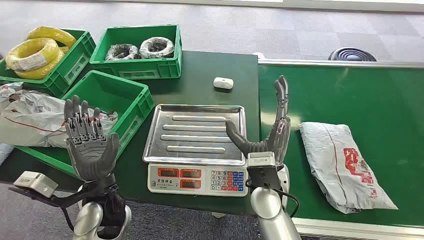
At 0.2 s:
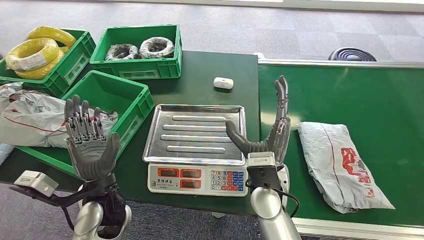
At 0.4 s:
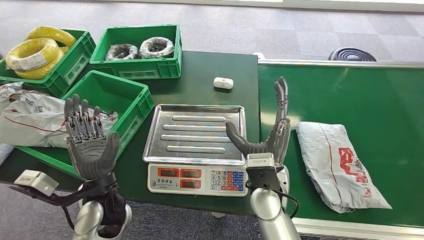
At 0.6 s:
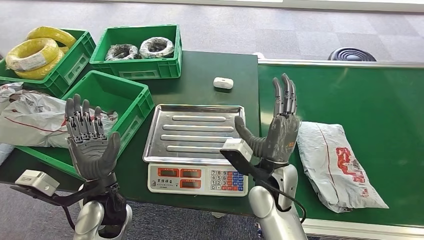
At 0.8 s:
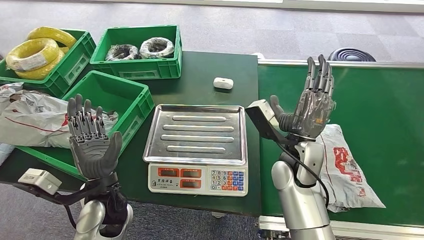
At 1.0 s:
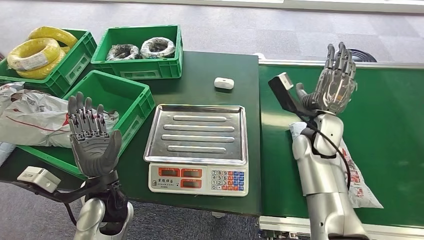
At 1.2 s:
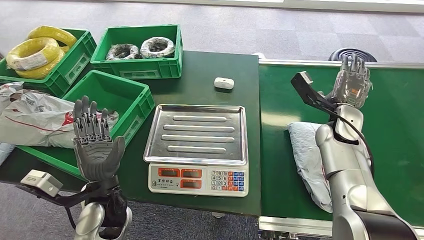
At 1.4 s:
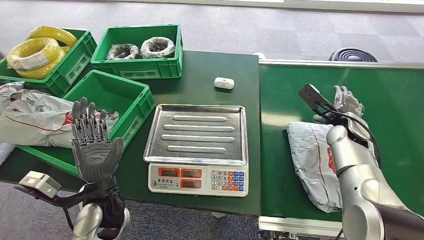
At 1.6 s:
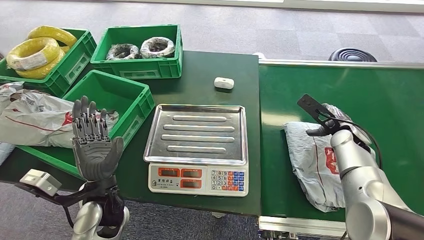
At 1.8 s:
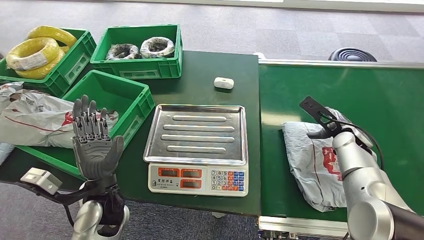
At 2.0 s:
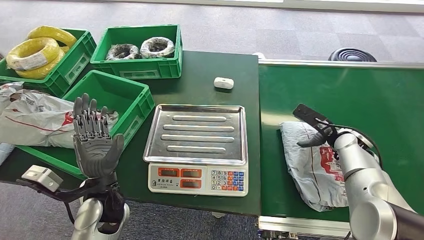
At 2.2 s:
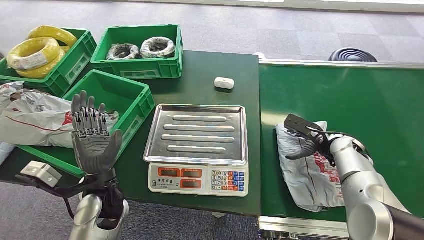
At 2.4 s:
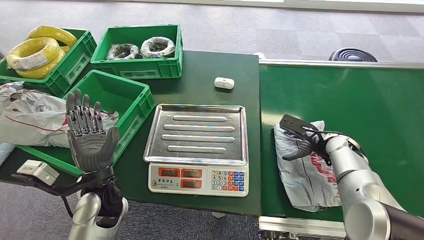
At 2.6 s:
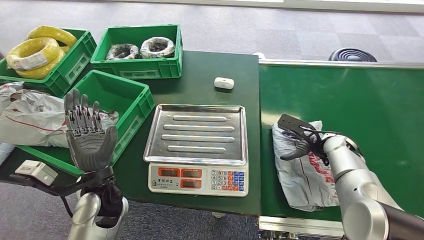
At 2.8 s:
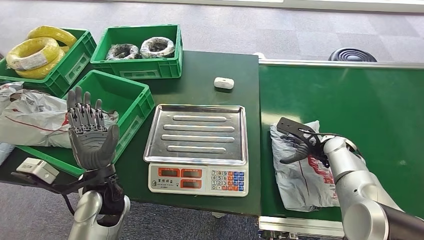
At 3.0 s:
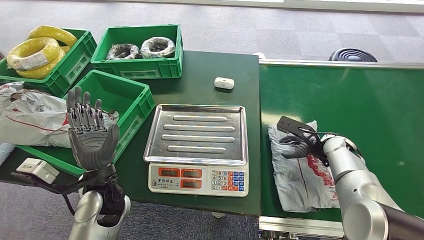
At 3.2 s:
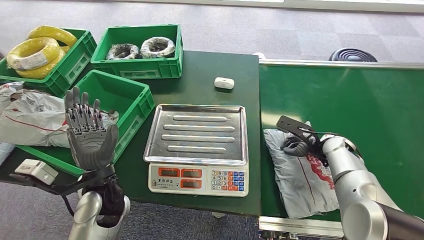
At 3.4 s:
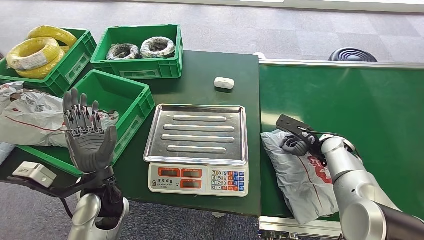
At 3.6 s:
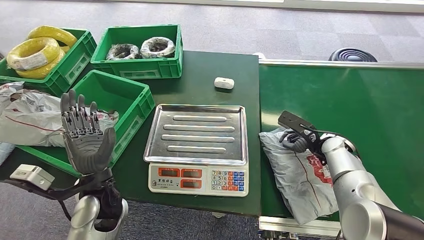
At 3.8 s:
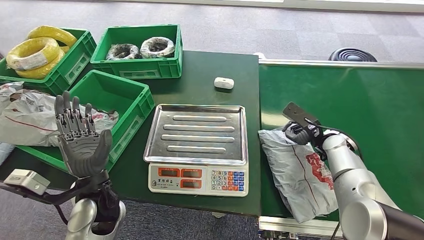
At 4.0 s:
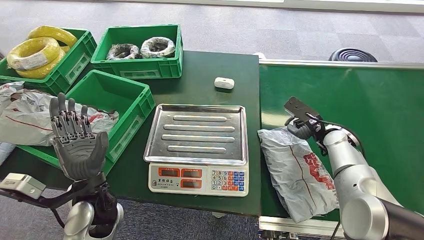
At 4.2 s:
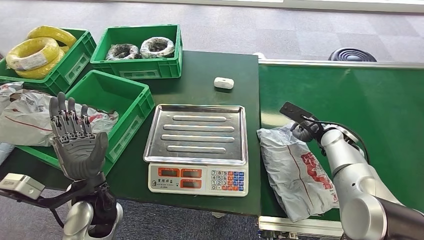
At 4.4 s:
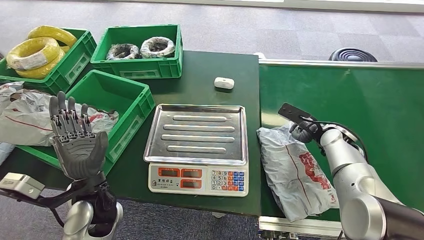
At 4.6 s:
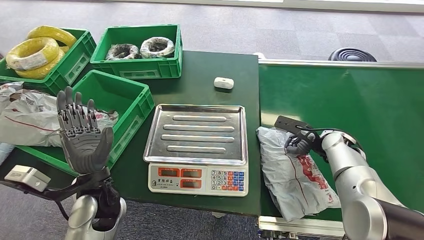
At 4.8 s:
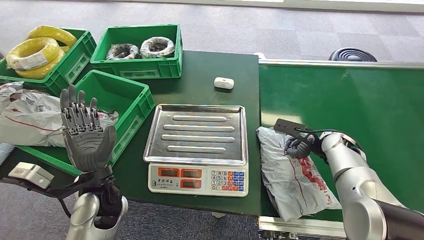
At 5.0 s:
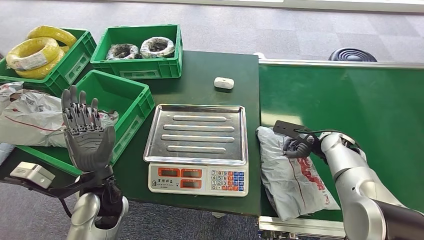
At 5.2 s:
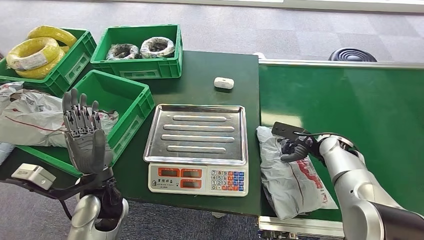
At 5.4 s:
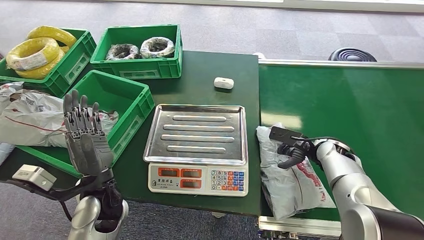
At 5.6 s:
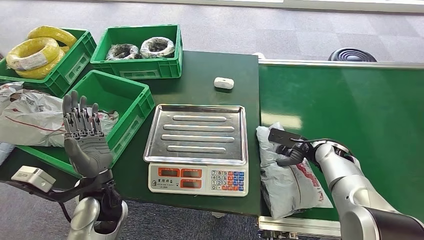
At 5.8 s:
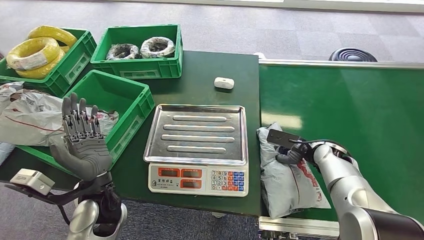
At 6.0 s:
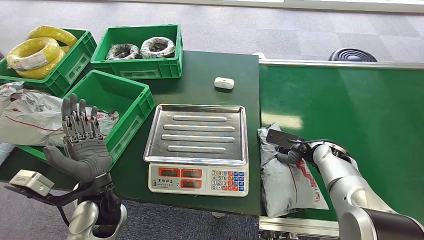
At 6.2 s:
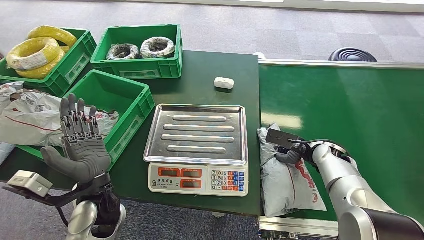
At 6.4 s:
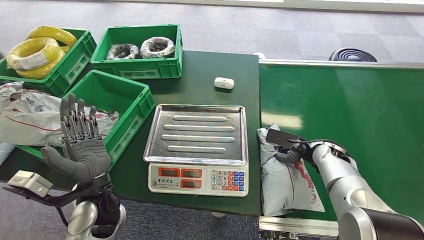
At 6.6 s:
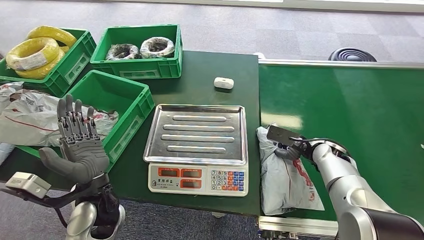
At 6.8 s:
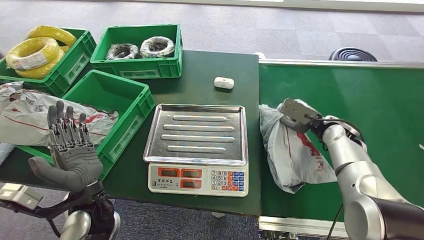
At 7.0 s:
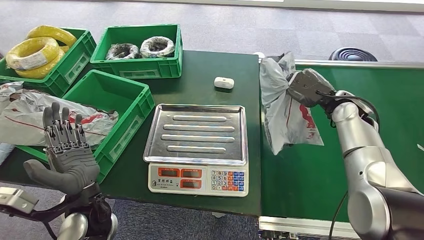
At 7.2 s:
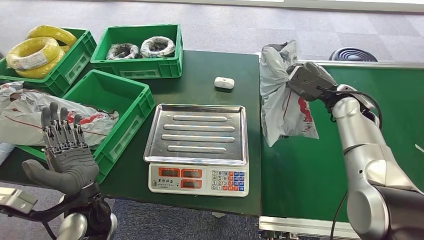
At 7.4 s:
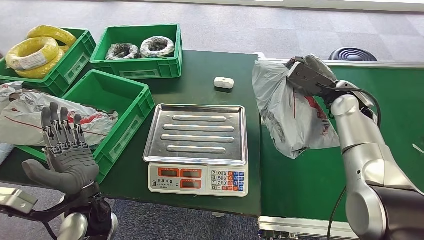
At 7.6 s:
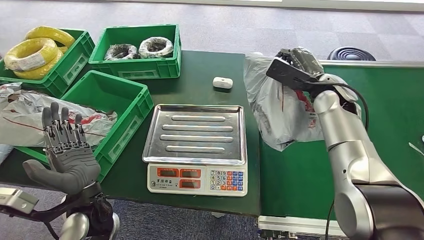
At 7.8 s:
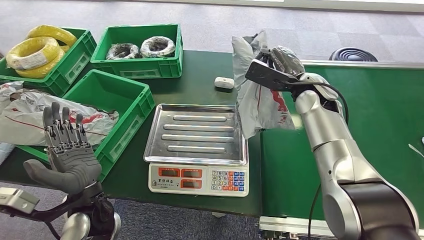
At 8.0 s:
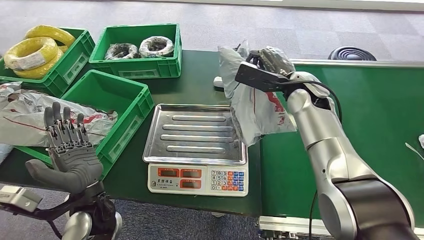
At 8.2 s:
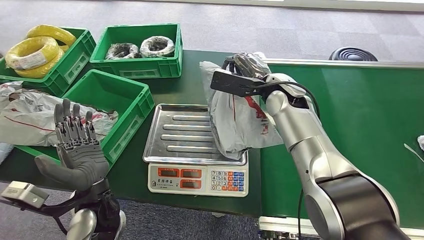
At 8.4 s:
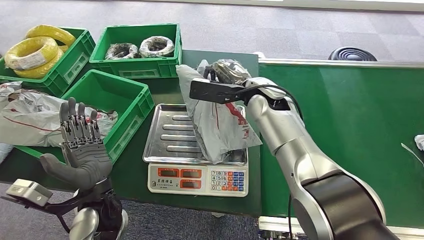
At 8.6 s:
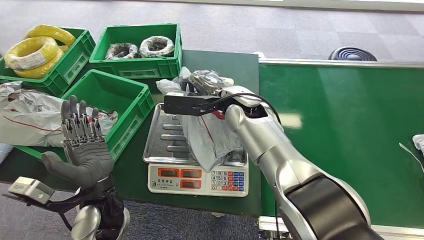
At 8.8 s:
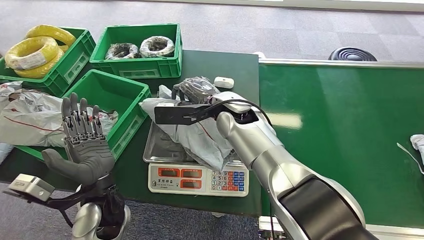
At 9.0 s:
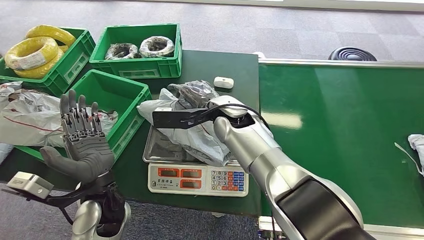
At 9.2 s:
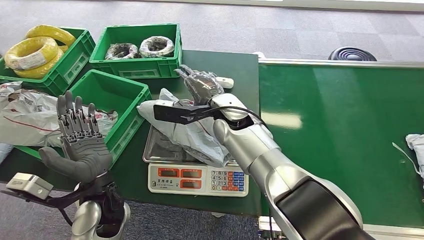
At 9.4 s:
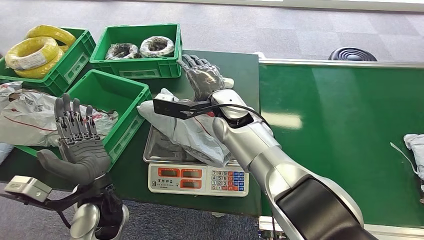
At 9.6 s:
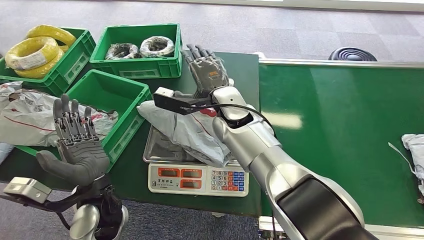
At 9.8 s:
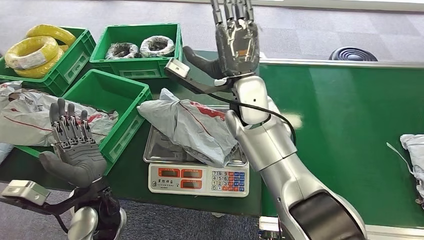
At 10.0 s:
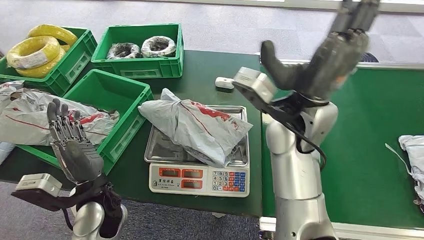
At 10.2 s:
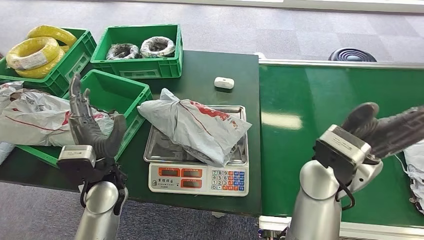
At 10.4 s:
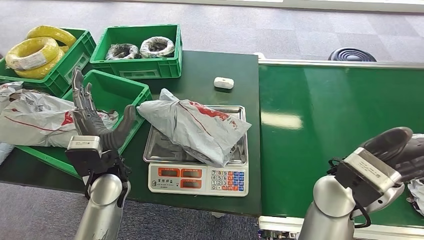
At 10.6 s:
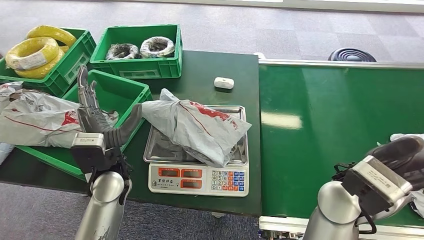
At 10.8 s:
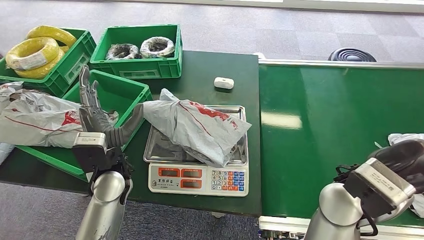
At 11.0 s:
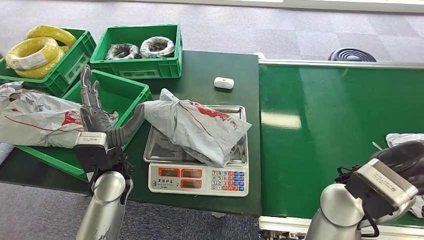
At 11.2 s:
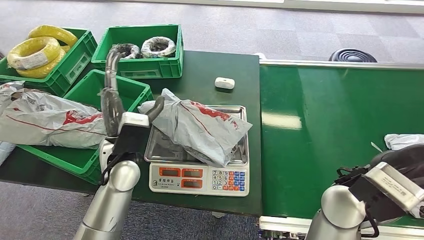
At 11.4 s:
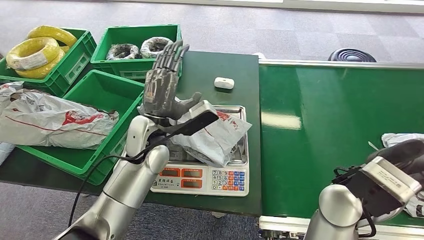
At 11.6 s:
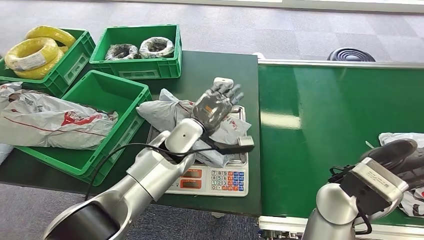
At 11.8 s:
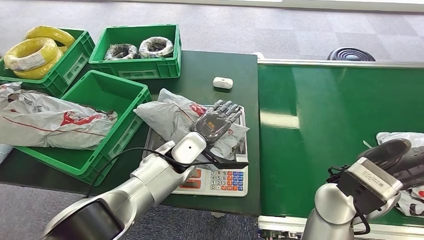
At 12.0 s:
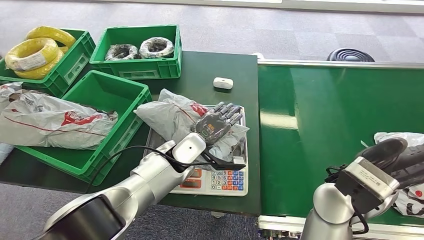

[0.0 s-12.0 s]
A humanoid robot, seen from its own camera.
Task of the whole recording: Weigh the package on the weighing device and place it in the left basket.
Step, 0.0 to 7.0 s: Pick up the package from the conveyor belt.
Step, 7.4 to 9.4 s: Place the package onto the inbound machine.
4.4 to 6.0 s: The right hand changes place by about 5 cm.

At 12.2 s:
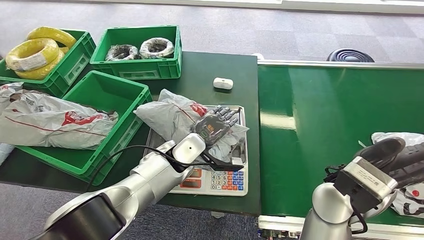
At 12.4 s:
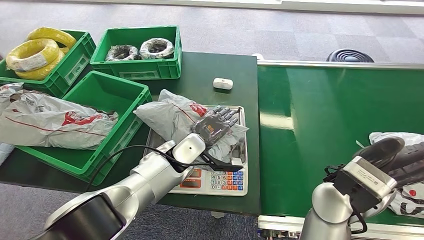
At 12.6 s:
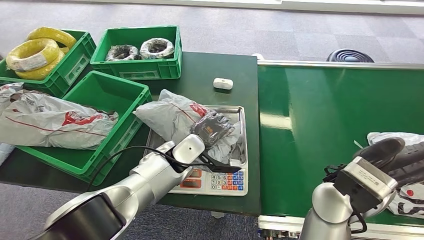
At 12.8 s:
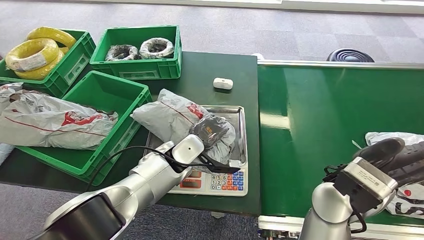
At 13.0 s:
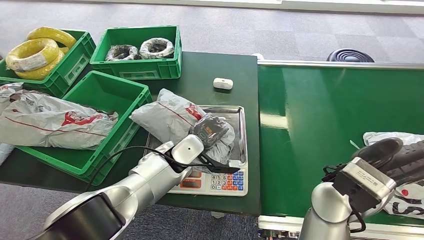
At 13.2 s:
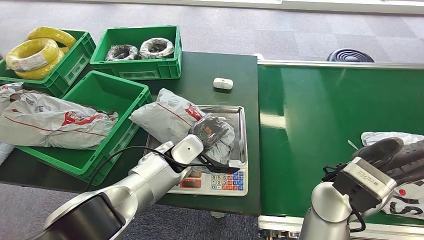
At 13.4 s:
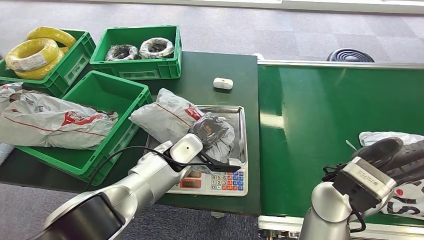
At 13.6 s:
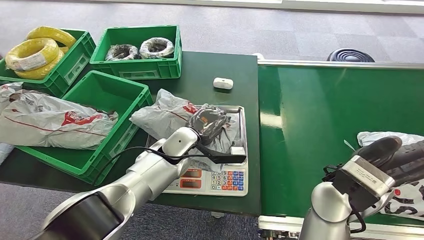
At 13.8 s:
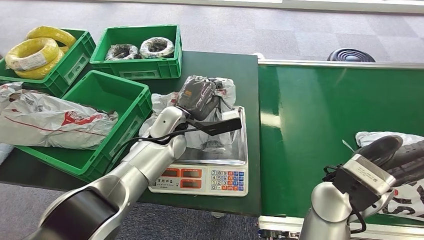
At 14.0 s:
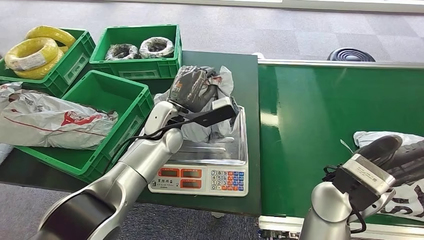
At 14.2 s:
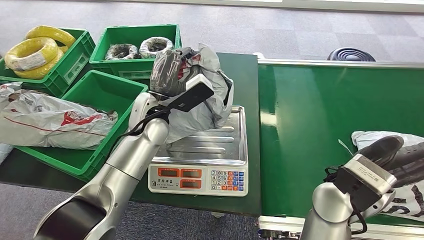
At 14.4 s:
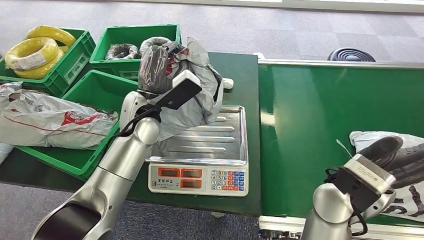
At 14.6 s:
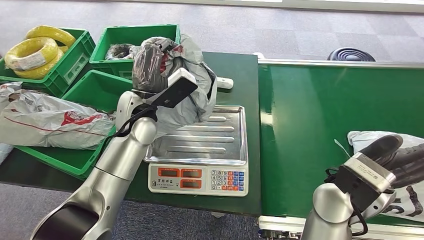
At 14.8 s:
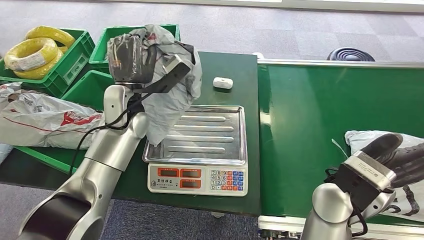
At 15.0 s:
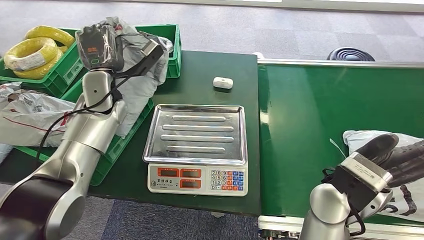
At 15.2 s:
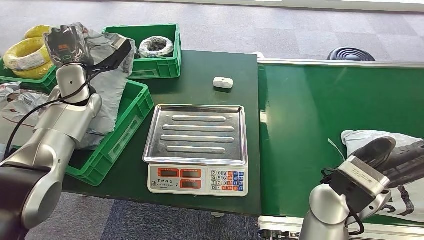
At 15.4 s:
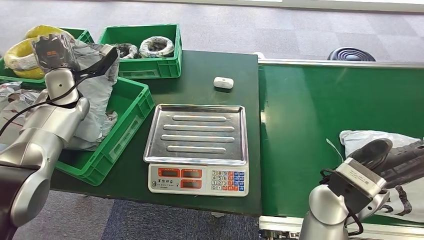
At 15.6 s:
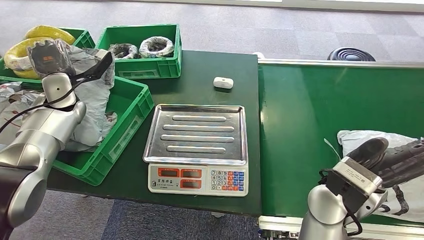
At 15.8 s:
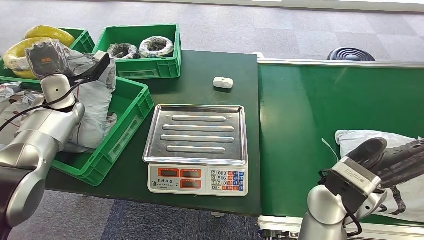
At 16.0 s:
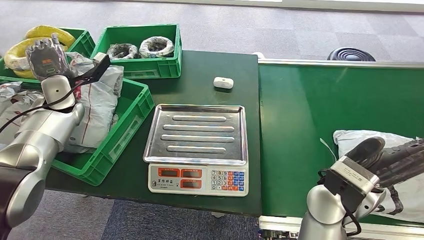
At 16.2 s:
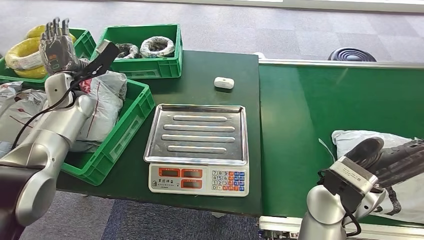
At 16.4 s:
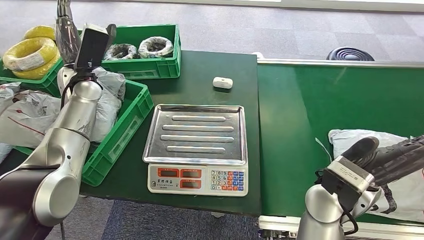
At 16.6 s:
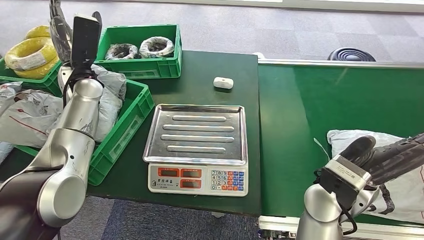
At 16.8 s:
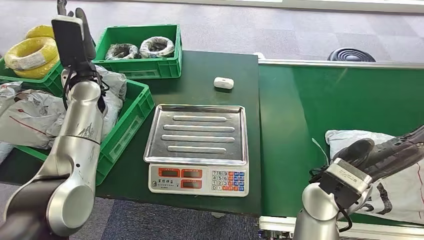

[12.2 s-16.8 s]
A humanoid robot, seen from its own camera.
Task of the whole recording: Weigh the package on the weighing device and place it in the left basket.
Step, 14.4 to 16.6 s: Place the package into the parcel locker.
12.2 to 13.8 s: The left hand is displaced upward by some 5 cm.
